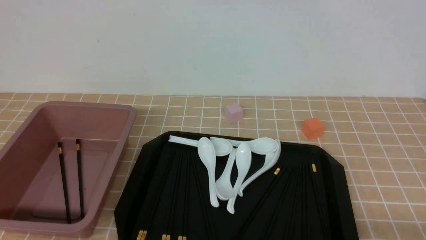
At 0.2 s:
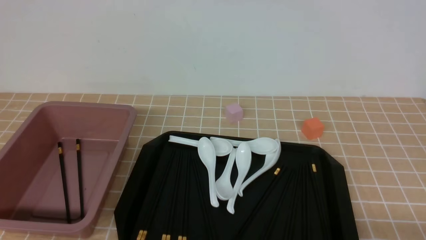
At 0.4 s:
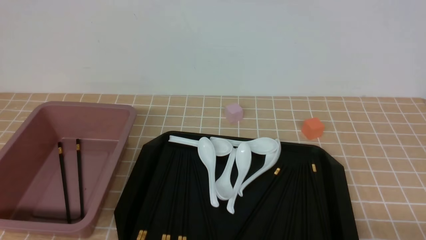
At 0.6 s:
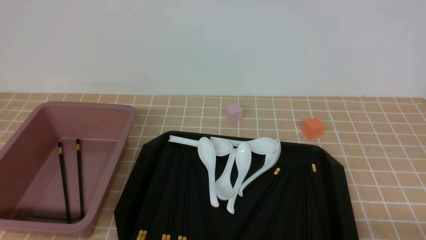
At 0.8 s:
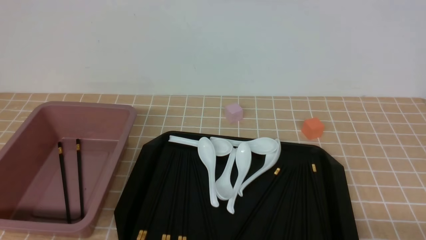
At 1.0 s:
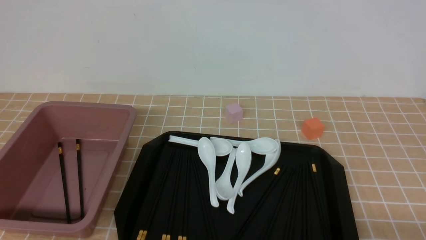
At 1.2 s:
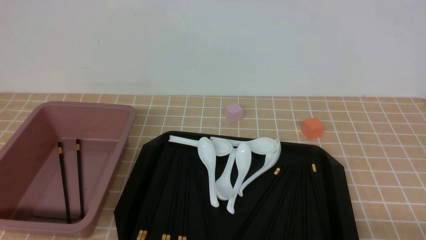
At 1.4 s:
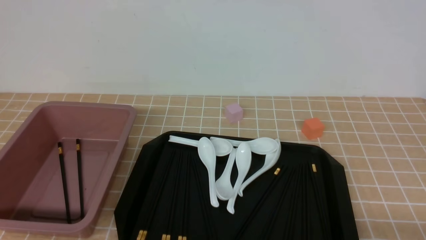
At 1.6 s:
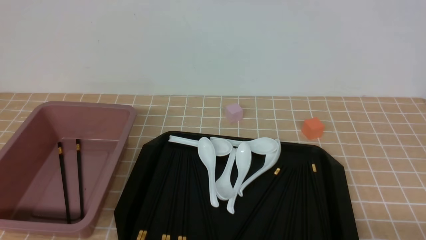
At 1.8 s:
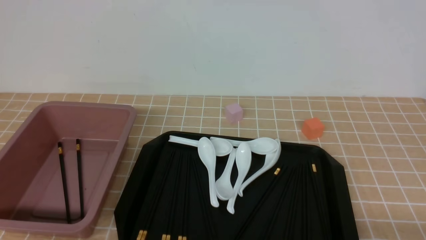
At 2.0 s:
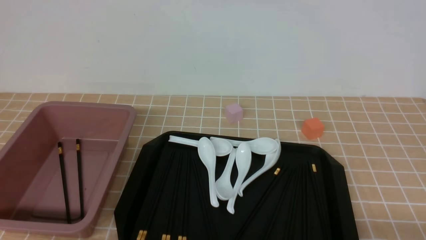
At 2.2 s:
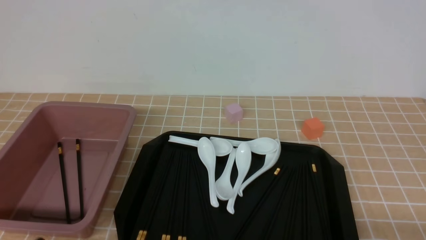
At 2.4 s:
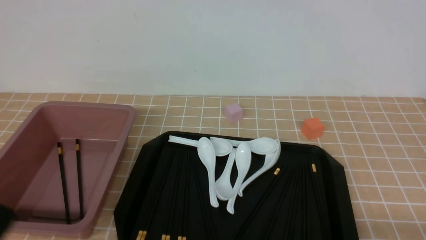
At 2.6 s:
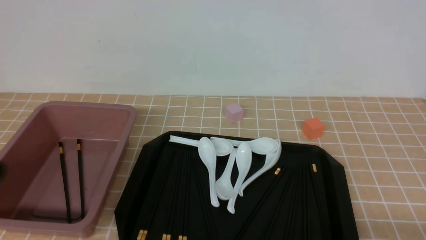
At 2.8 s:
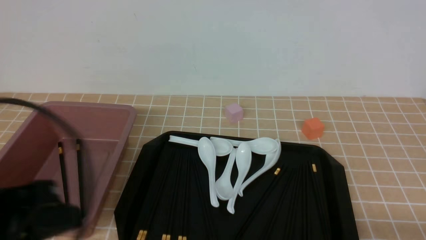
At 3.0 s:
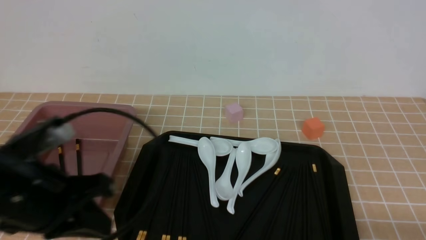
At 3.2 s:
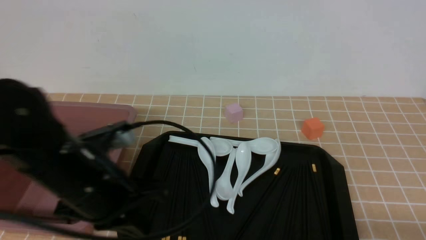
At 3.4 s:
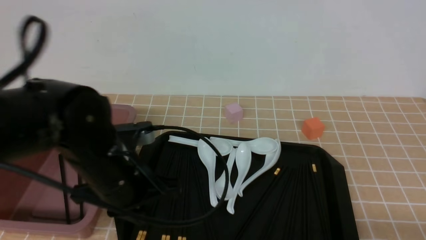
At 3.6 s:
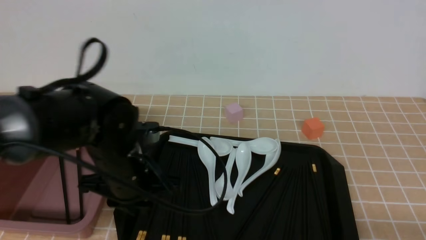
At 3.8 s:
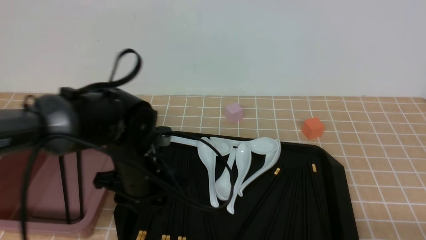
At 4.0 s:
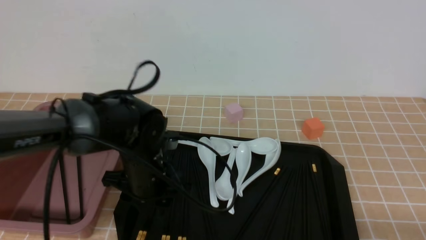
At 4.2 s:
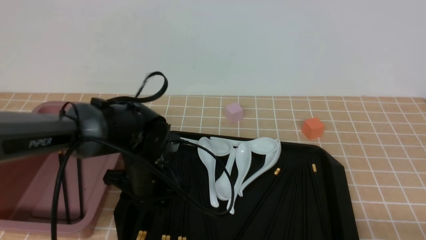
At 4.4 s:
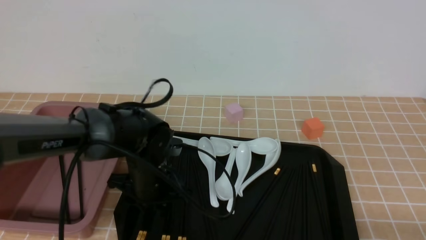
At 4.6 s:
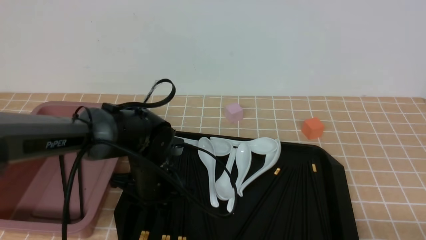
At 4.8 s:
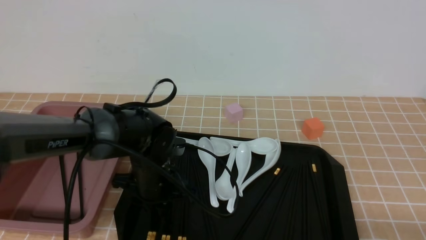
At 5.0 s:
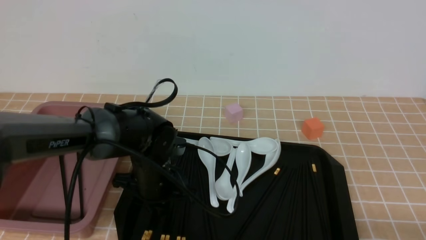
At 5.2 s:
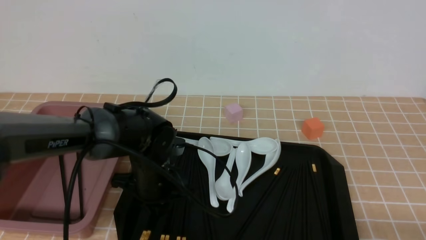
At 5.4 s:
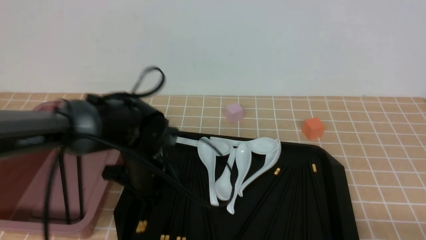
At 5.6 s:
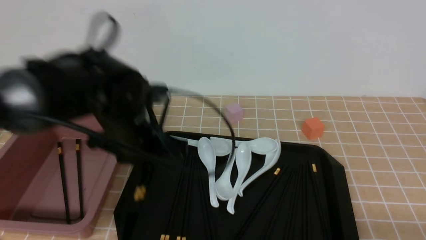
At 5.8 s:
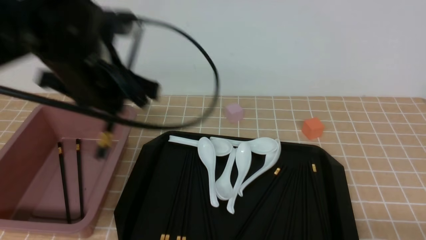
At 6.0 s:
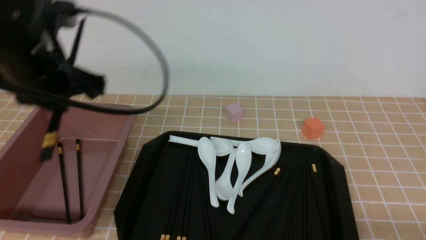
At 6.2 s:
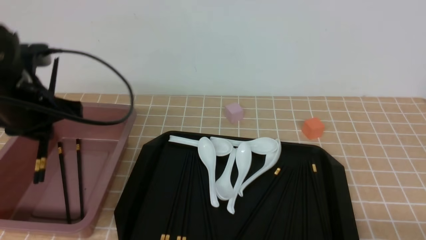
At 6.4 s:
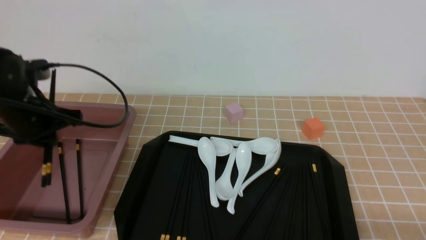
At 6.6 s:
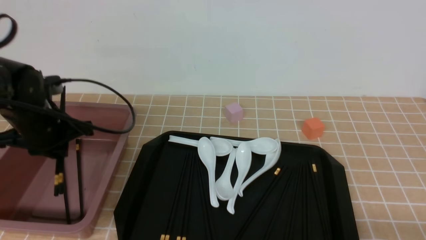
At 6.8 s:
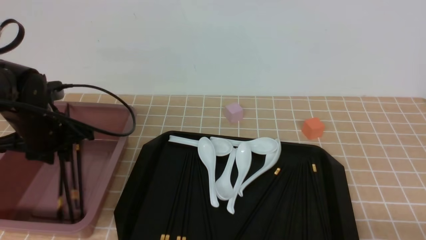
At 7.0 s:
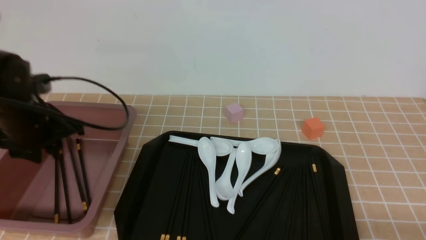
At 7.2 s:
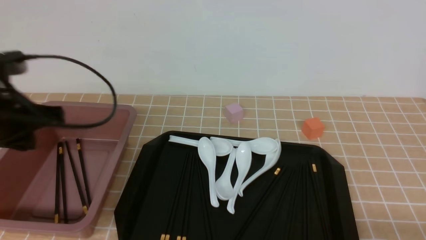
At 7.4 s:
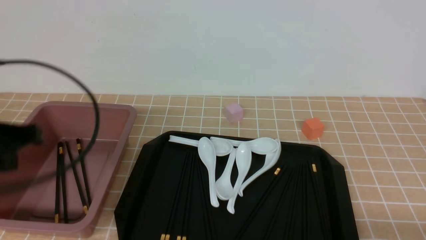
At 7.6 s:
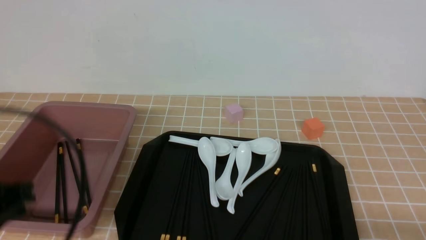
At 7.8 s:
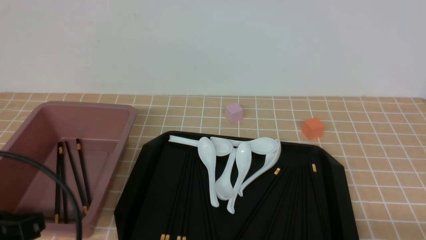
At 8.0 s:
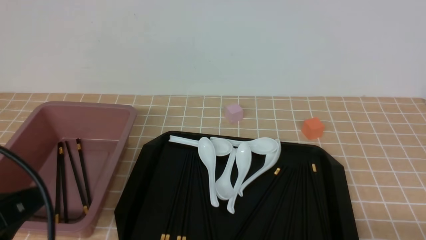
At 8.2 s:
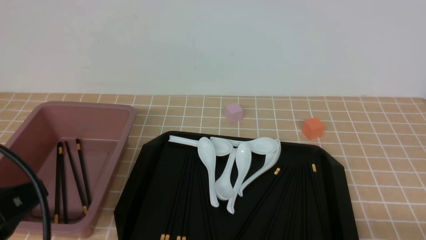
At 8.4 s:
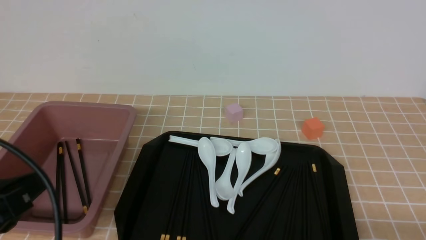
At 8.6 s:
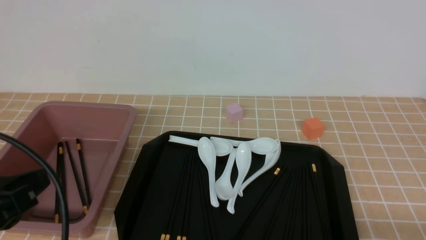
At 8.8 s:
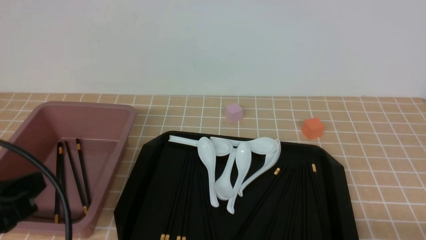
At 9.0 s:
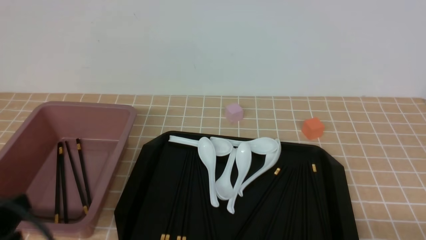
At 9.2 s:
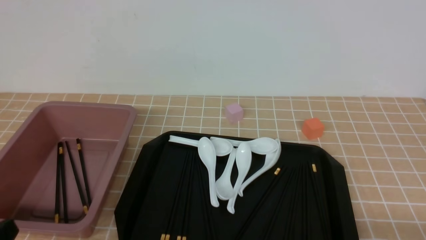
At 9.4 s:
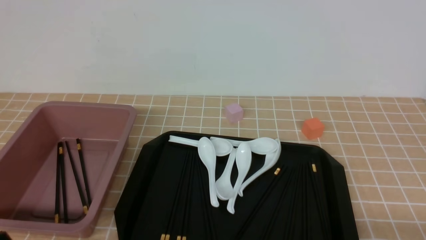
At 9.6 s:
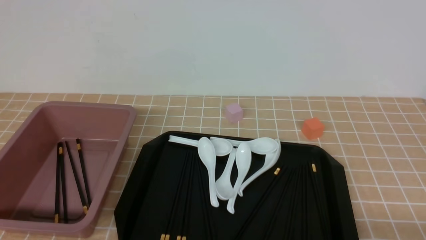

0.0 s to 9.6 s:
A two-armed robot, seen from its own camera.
Step, 0.0 to 5.6 s: use the left arm to grab a pair of chopsticks.
Step, 5.8 to 7.4 s: use the left arm to put the chopsticks into the lunch box.
0.0 to 1.6 s: The two grippers keep their place.
1.6 to 3.2 s: The left gripper is displaced forward, to the right and upward by about 20 cm.
3.2 to 4.8 s: The left gripper goes approximately 15 cm downward, forward and to the right, and opens up.
4.8 to 6.4 s: The left gripper moves to the left and upward, some 20 cm.
6.4 to 8.0 s: The left gripper shifts about 25 cm backward, and closes.
8.0 to 9.6 s: The left gripper is displaced downward by roughly 10 cm.

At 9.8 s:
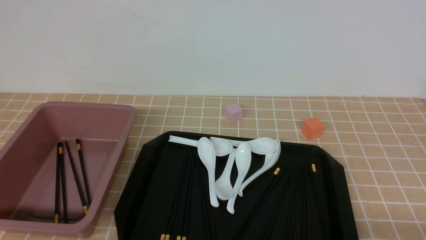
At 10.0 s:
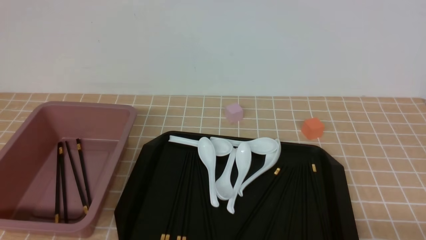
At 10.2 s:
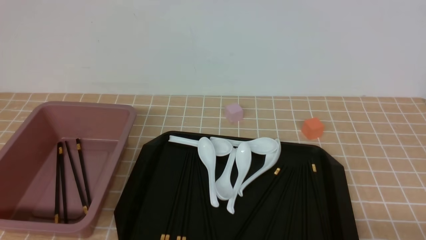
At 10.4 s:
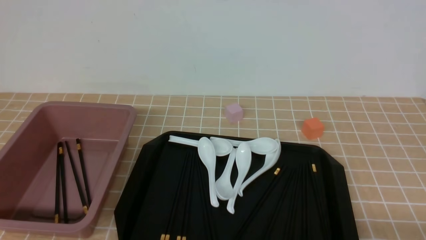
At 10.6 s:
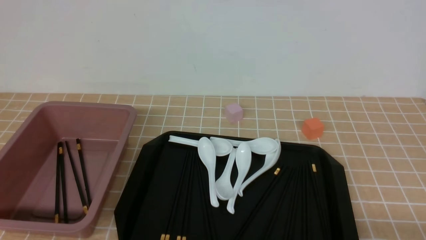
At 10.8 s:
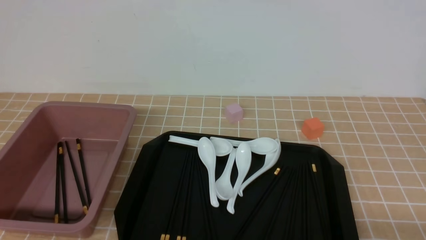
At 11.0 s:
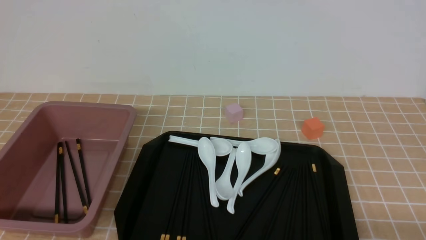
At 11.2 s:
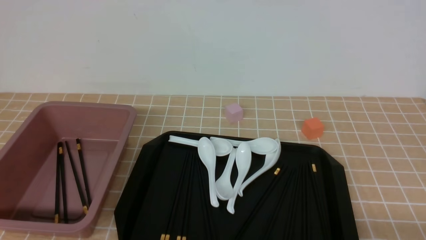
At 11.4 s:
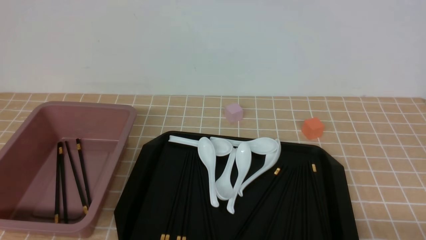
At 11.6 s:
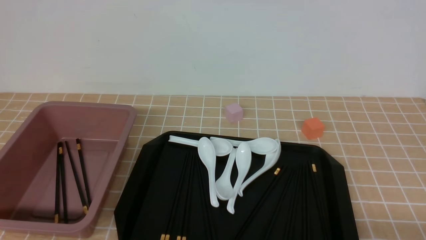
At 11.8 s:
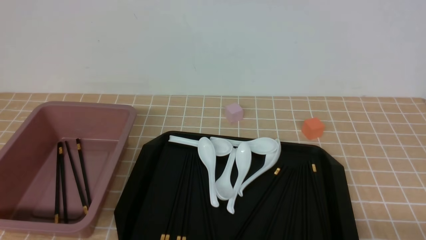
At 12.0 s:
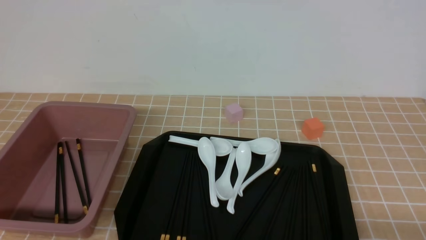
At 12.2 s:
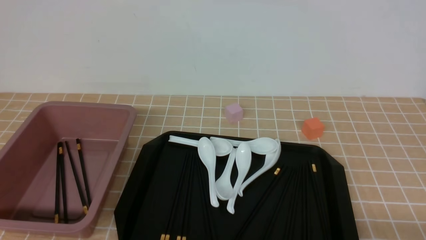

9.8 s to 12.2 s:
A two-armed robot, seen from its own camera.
9.8 to 12.2 s: Both grippers stay put.
